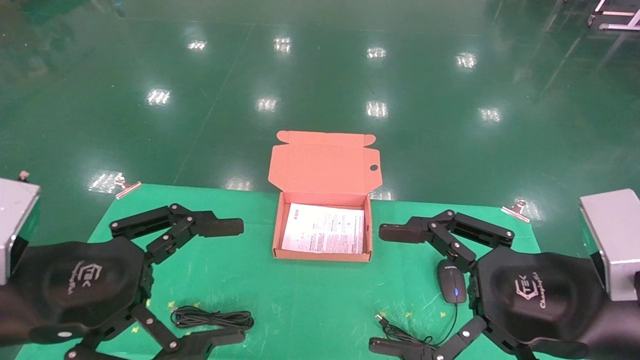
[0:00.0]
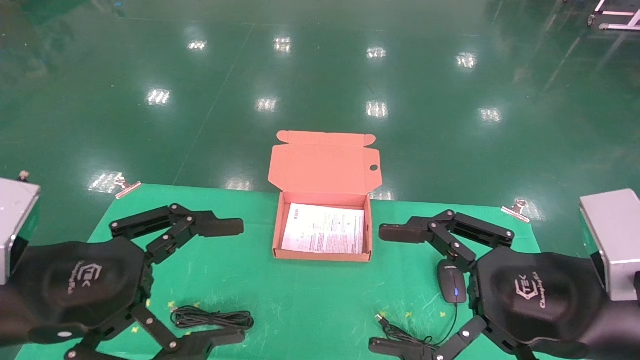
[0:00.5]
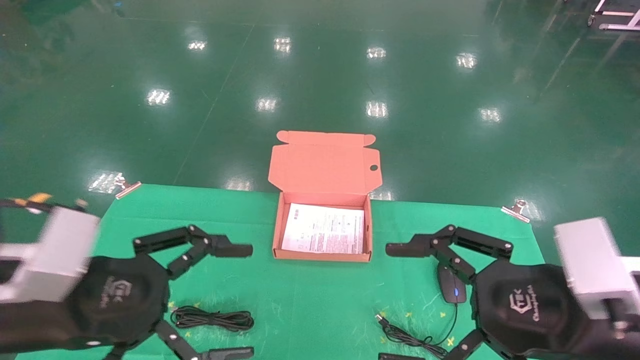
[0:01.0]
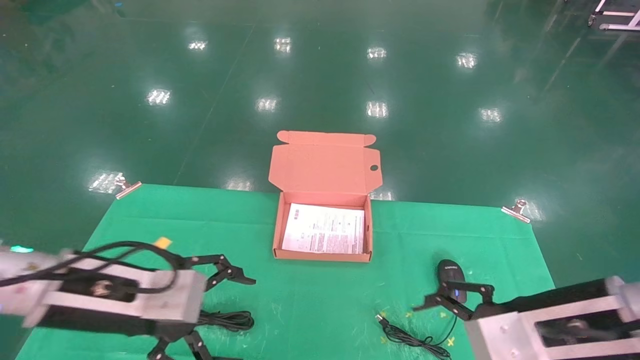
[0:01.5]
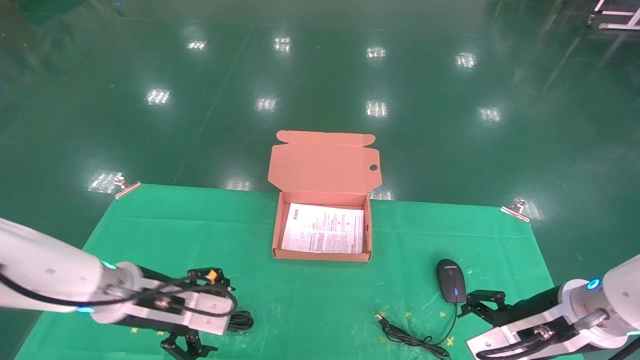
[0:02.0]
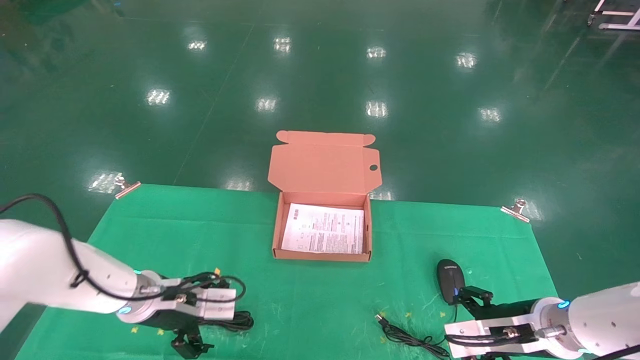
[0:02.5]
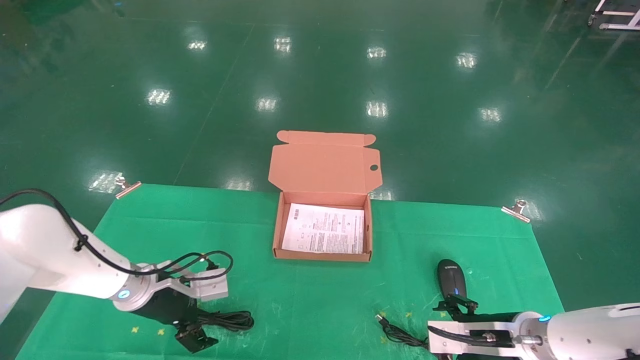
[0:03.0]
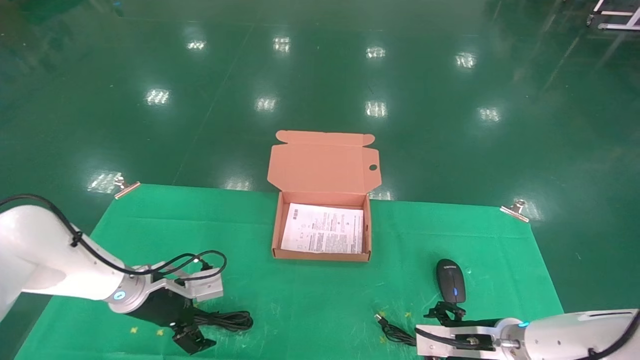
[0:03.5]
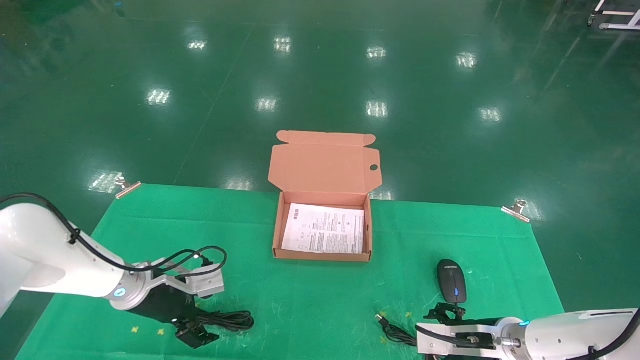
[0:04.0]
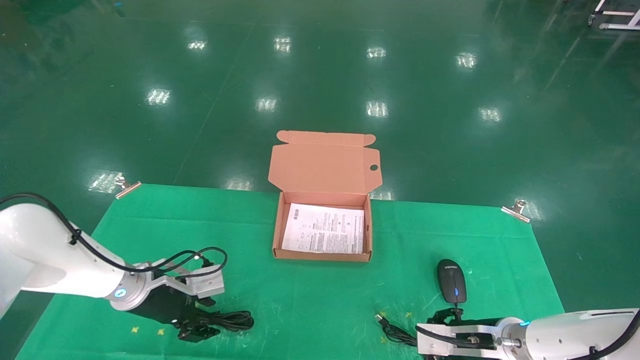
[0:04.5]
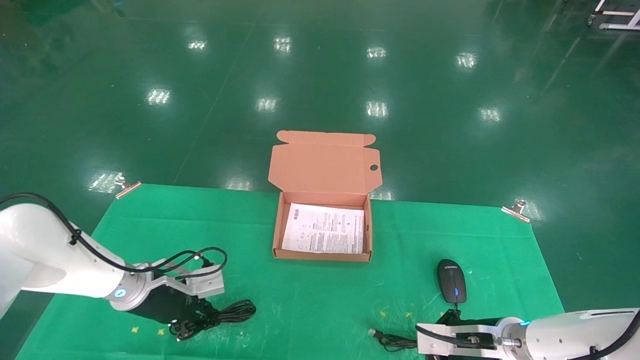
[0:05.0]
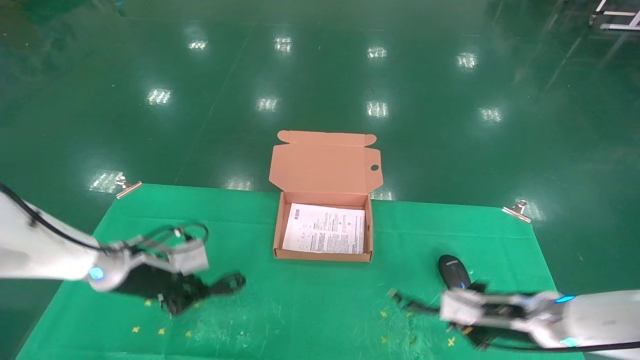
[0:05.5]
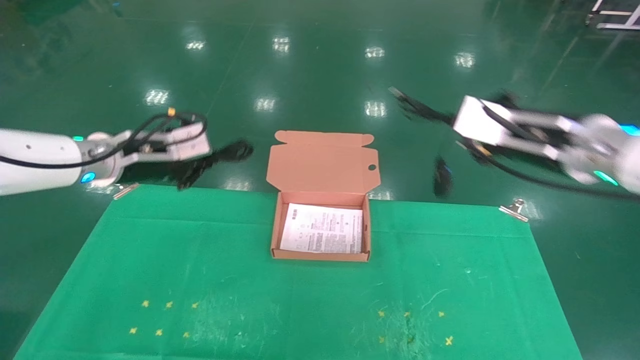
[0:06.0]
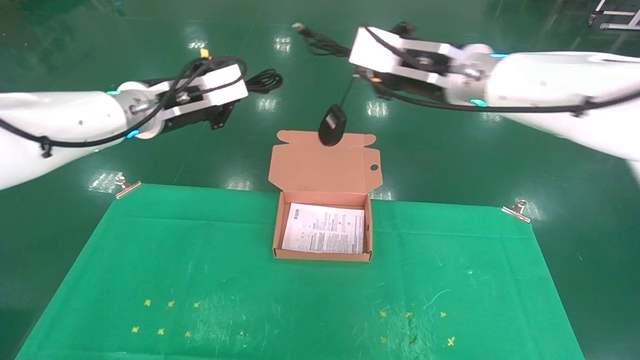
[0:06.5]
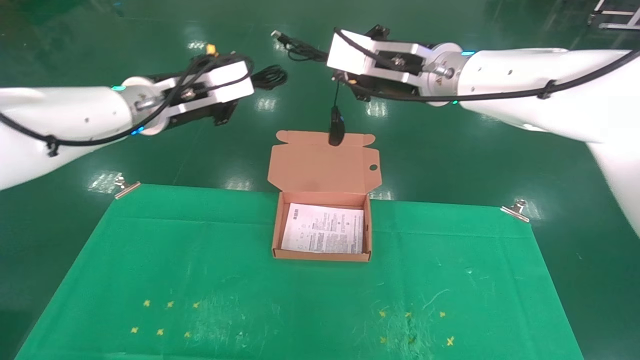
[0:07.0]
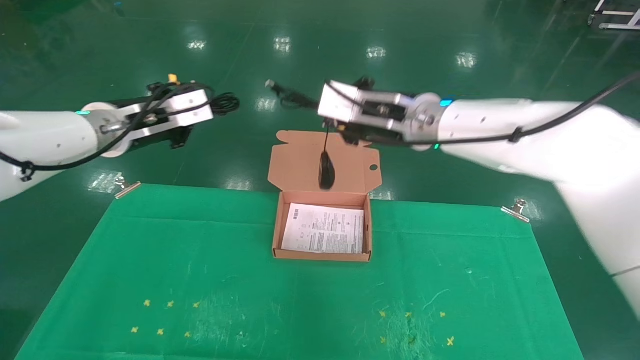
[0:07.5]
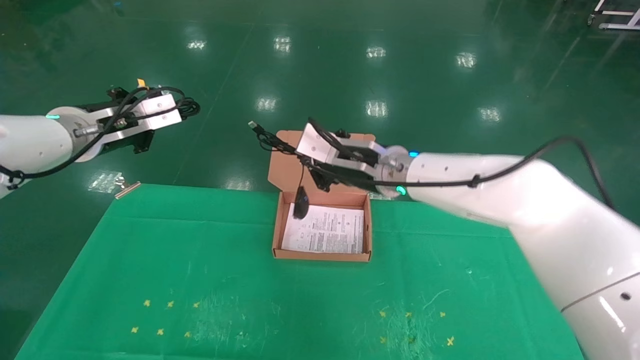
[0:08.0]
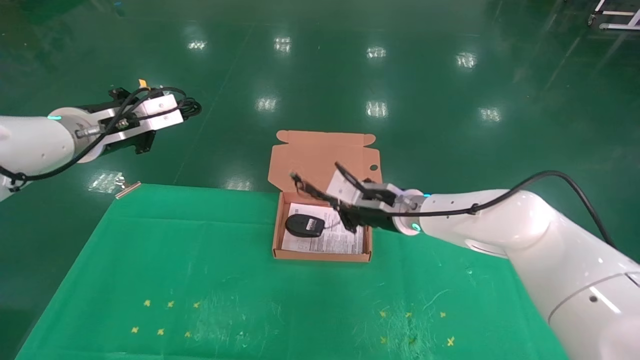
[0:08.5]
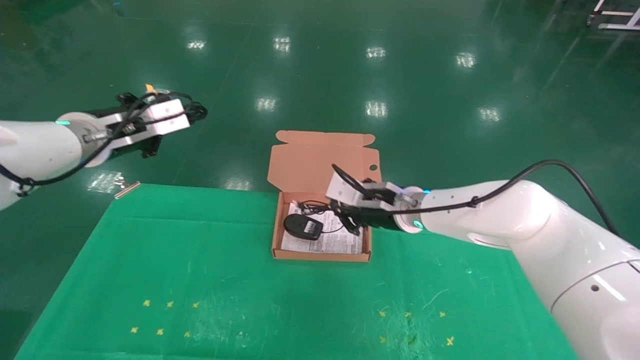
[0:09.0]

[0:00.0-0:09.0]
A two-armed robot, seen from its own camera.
Task of the whole recording: grasp data cable left put into box grasp mouse right put into box.
Step, 0:01.0 to 0:06.0: Grab and pick up both the mouse and power cord from the accessory packaging area at the same time.
0:00.0 to 0:02.0: The grippers both shift forward and downward by some 15 cm.
0:02.0 to 0:04.5: The left gripper heads forward and downward, covering approximately 10 cm, and closes. The right gripper travels downward and forward by some 15 cm, and closes.
0:04.5 to 0:07.0: The two grippers go roughly 30 cm upward. The right gripper closes its fingers. The left gripper closes its fingers.
0:07.0 to 0:09.0: The left gripper travels to the left by about 5 cm, while the right gripper travels downward by roughly 20 cm.

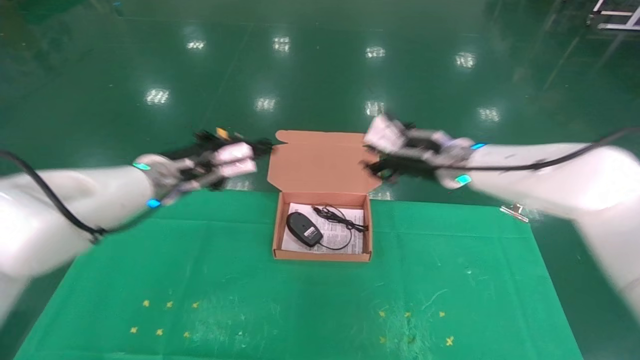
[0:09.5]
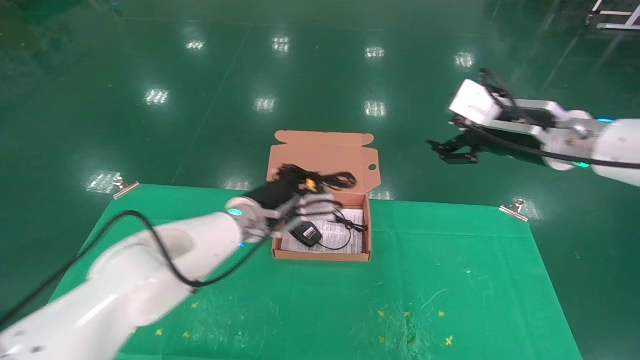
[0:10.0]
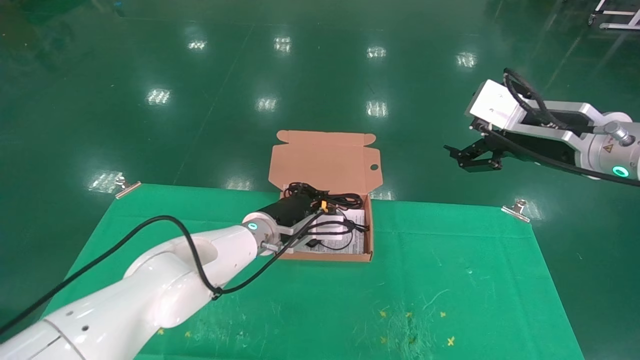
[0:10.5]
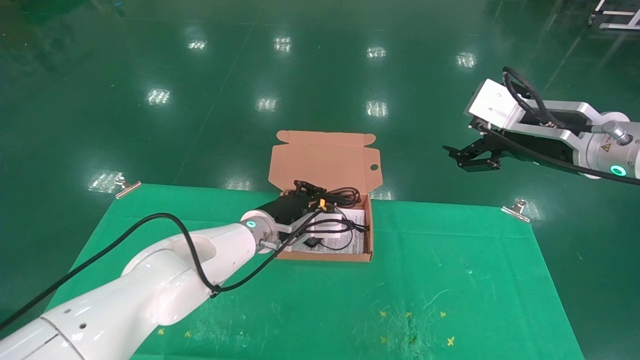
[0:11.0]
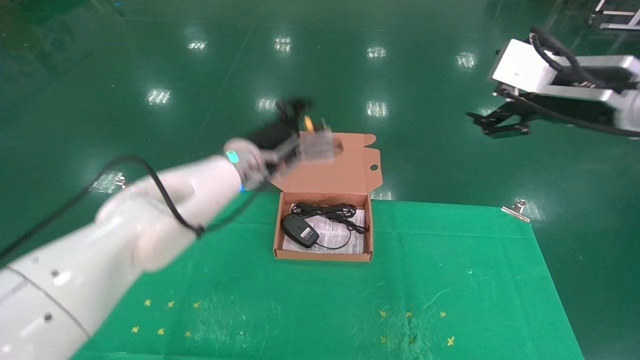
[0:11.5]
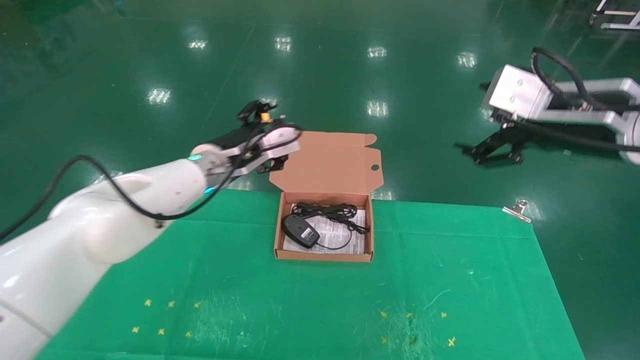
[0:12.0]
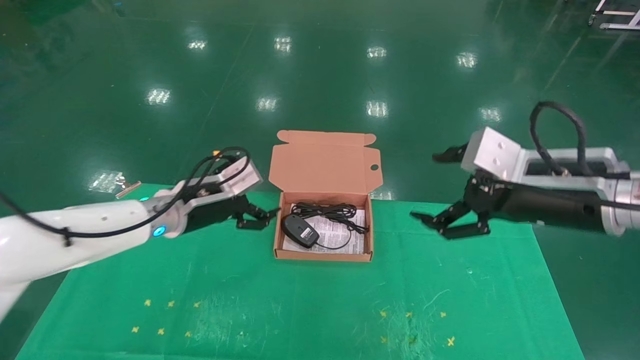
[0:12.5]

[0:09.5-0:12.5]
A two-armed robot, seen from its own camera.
Task of the whole recording: grasp data cable left put into box grasp mouse right put into box.
Step, 0:09.5 to 0:12.0: Place the mouse and power cord into the box.
0:09.5 to 0:11.0: The right gripper goes roughly 15 cm backward, to the right and upward, and opens up. Meanwhile the left gripper moves to the right and downward, roughly 15 cm.
0:11.0 to 0:12.5: The left gripper heads to the left, covering roughly 15 cm, and opens its fingers; the right gripper is displaced backward and downward by approximately 5 cm.
